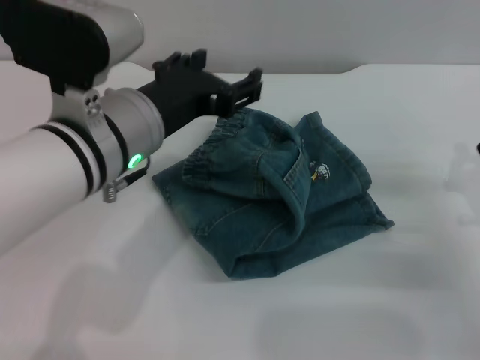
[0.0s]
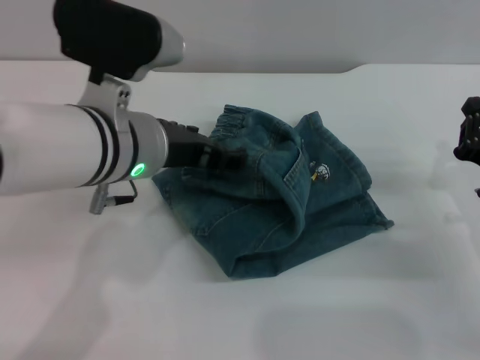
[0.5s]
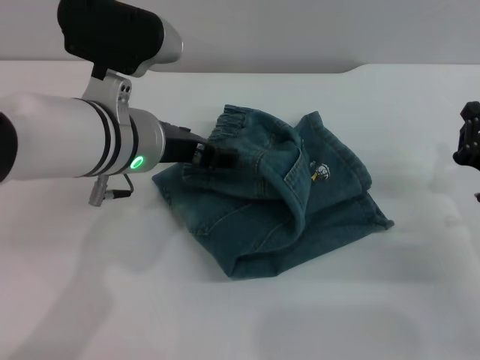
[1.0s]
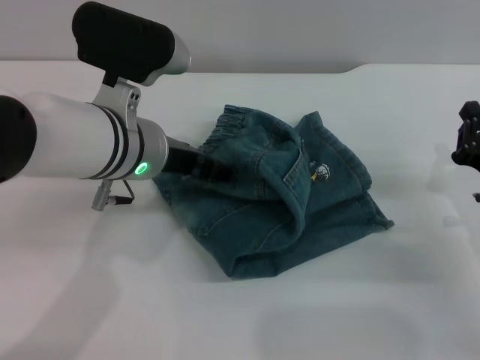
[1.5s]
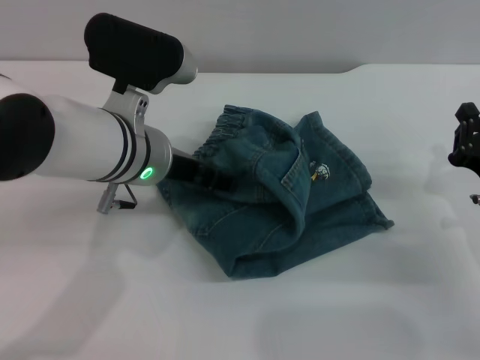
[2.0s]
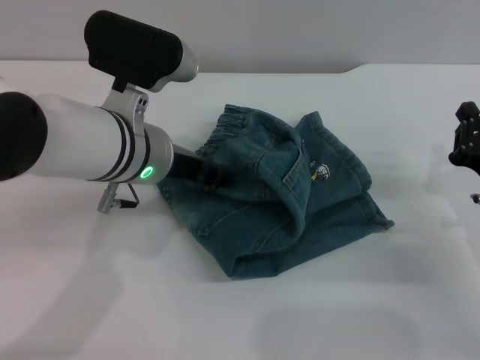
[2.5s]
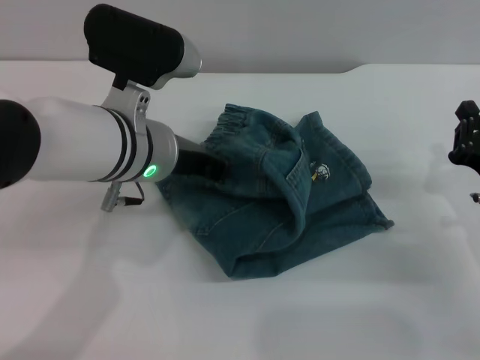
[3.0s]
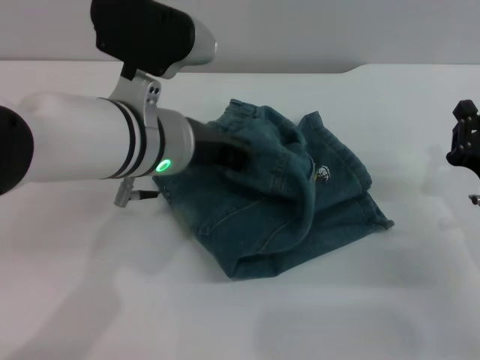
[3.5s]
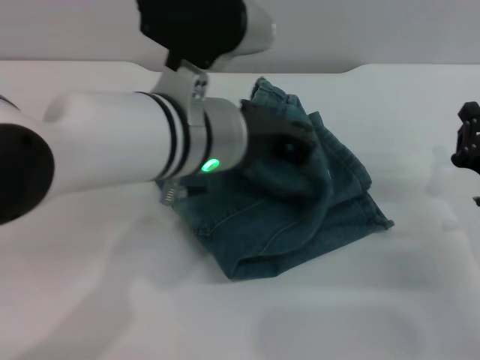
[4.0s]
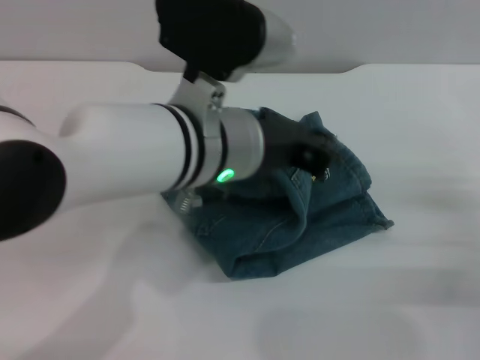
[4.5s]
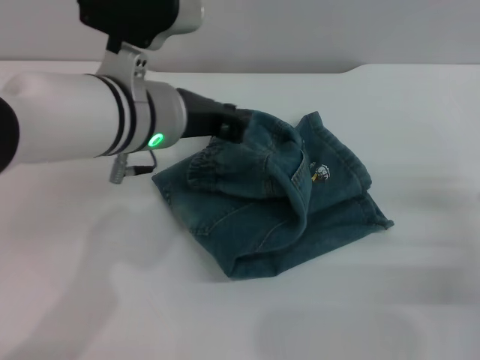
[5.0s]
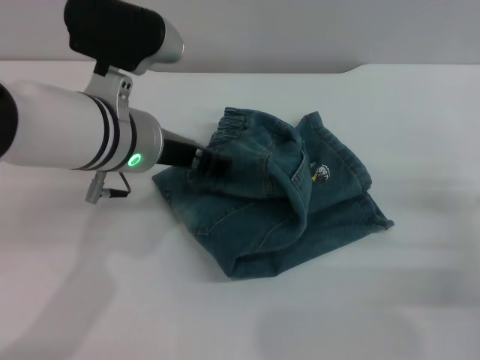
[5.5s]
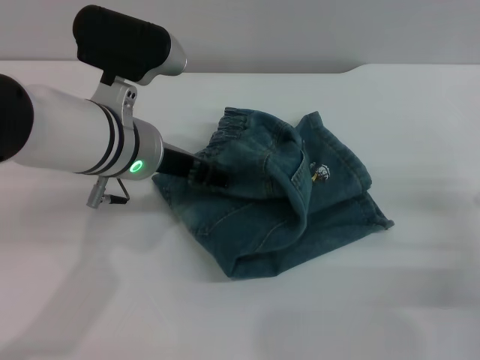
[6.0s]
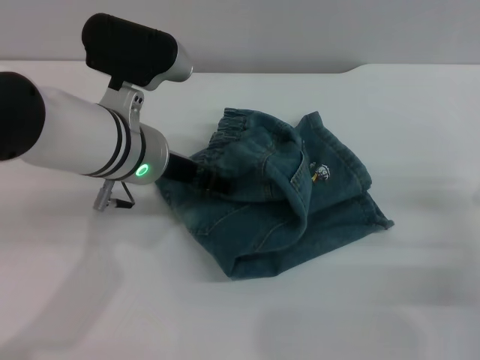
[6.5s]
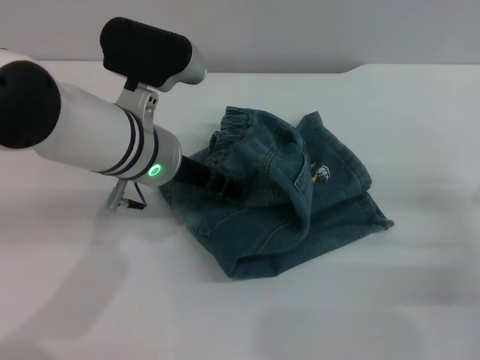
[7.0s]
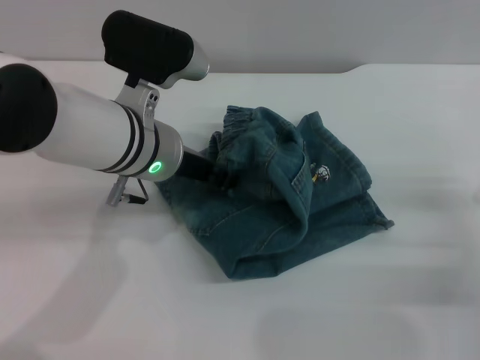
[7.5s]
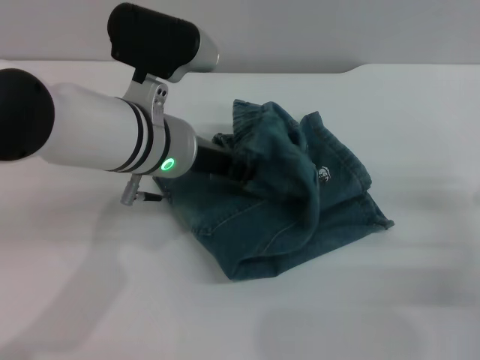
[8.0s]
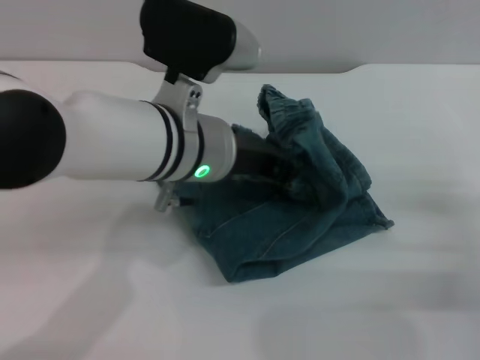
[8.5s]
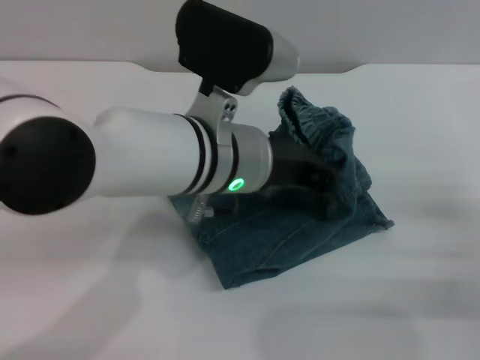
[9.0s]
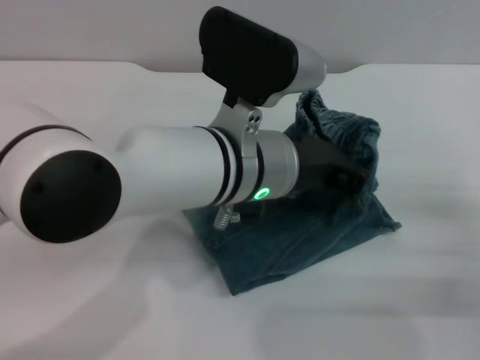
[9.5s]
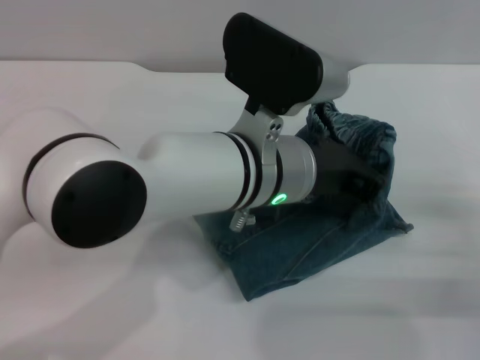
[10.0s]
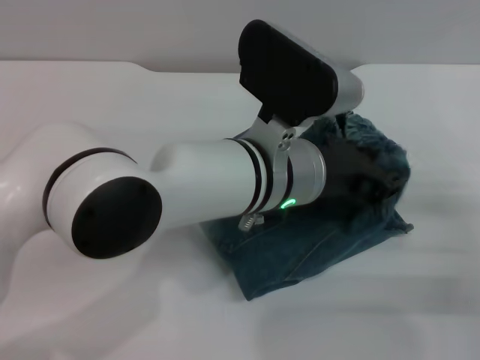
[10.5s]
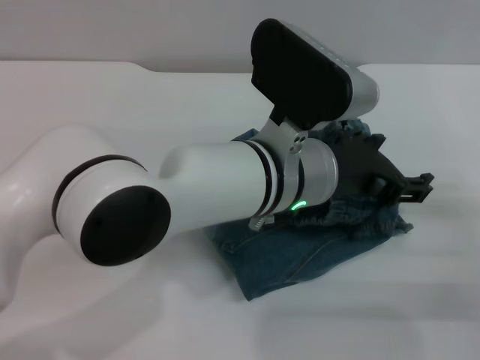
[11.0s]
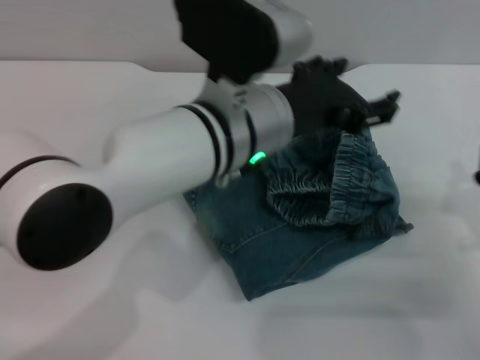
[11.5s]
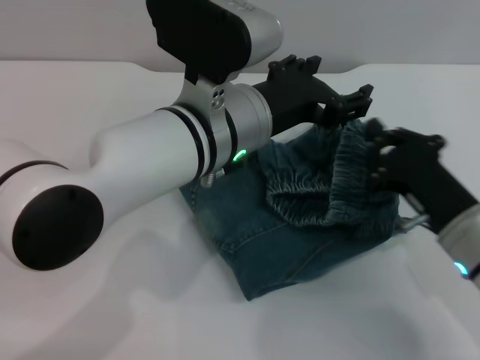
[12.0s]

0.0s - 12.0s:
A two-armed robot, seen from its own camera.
Step, 0.0s - 5.0s: Fold the pants from left to right with the left gripper.
0.0s - 2.0s: The left gripper moves approximately 5 cm.
2.0s - 4.0s: The left gripper travels upward by some 5 cm, and closes up.
4.0s - 6.0s: The left gripper shifts some 5 cm to the left, and opens.
6.0s - 8.0s: The left gripper closes up.
8.0s - 10.0s: The left gripper heads to the right, covering roughly 10 cm.
10.0s - 12.0s: The left gripper opens, while the right gripper is displaced to the left by roughly 10 cm.

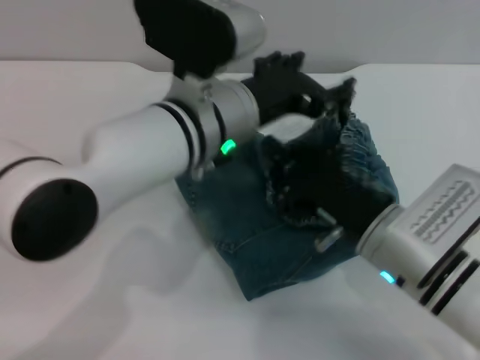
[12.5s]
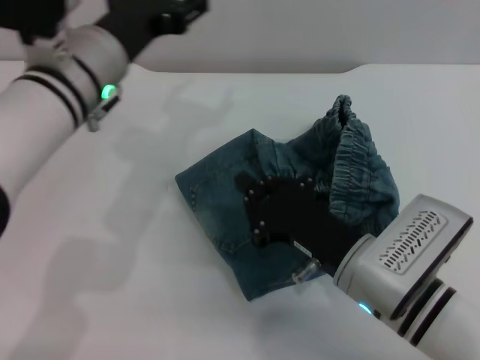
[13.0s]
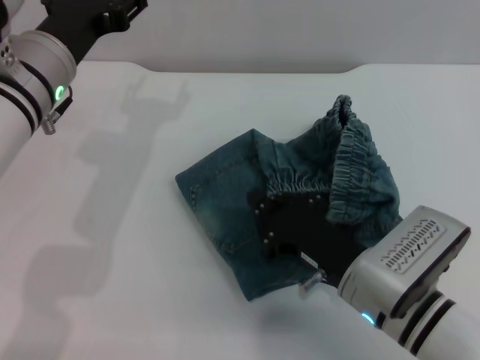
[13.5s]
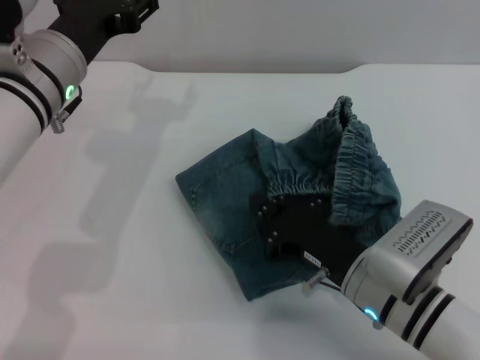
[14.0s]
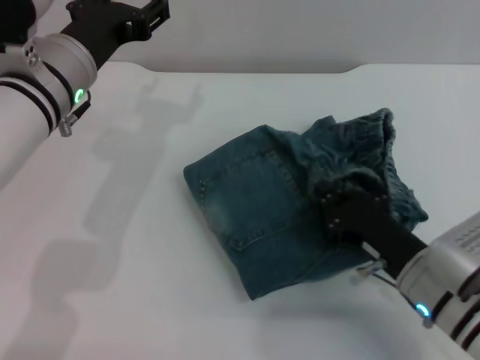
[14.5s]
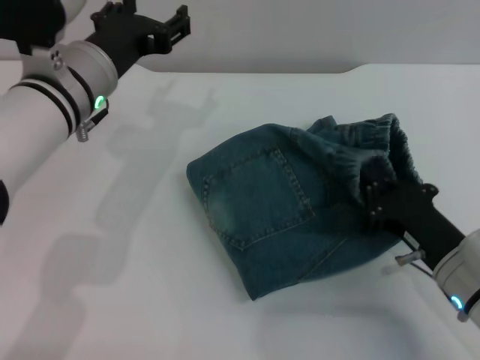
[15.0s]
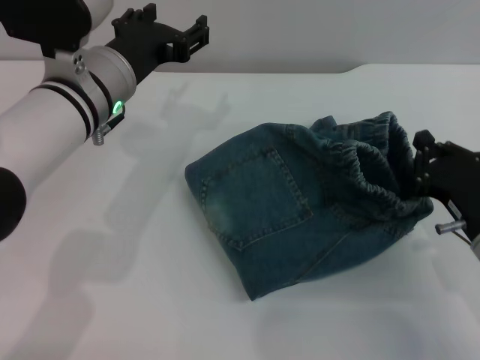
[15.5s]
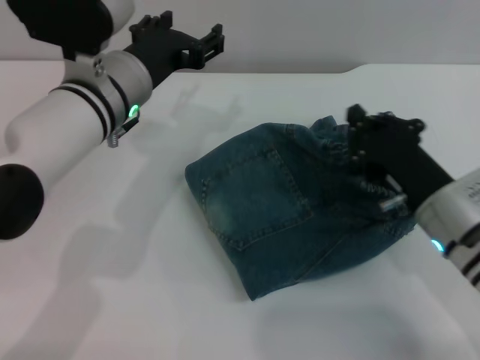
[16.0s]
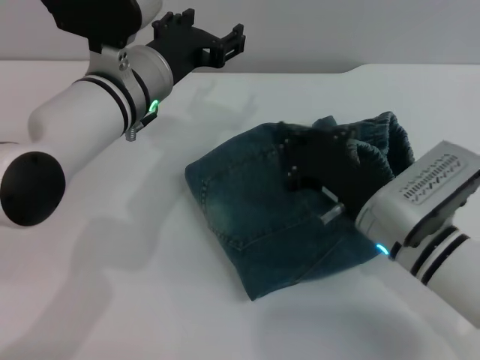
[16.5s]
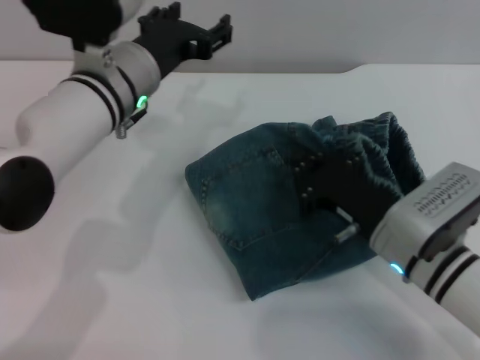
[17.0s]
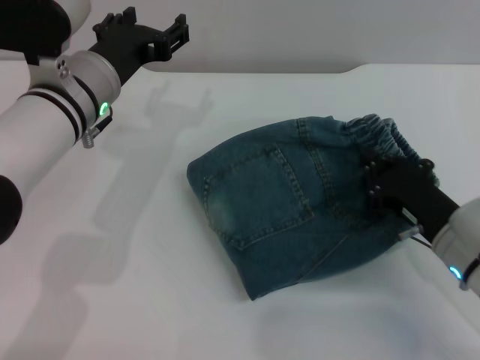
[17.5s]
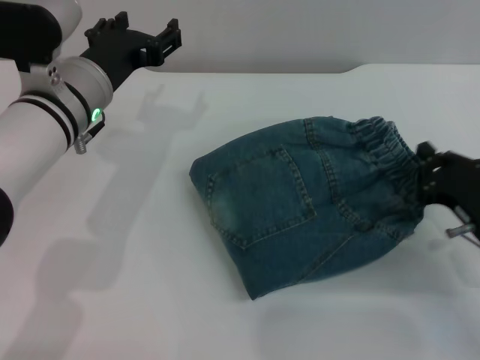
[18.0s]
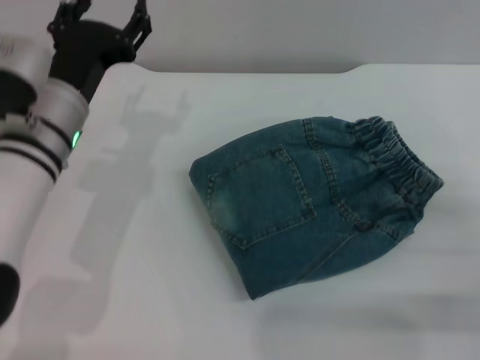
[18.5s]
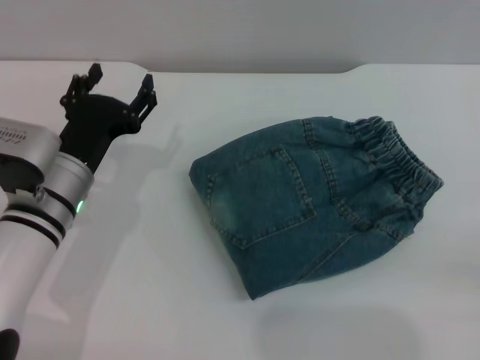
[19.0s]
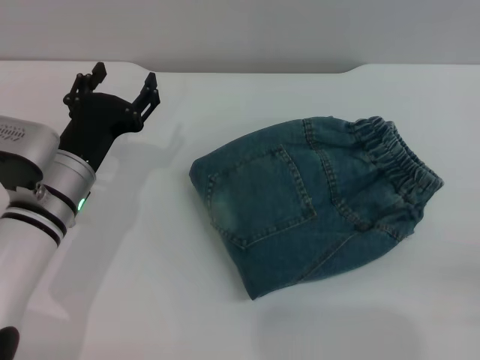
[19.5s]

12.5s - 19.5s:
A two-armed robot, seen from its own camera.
12.5s - 14.5s: The right gripper moves roughly 5 cm. Meanwhile the left gripper goes some 10 cm to the left.
14.5s - 16.0s: The right gripper shifts by roughly 5 cm.
16.0s - 17.5s: There are only small adjustments of the grippers.
17.5s - 19.5s: The left gripper heads downward and backward, covering approximately 10 cm, while the right gripper heads backward and to the right, covering some 20 cm, and opens.
